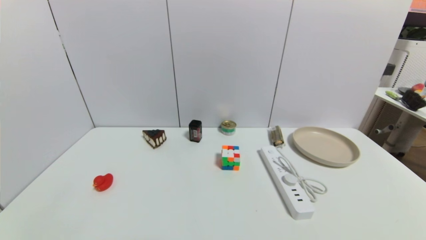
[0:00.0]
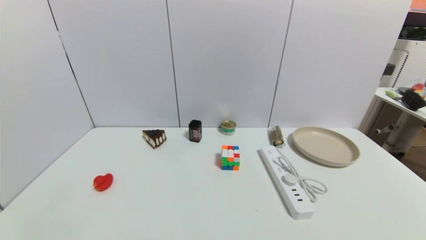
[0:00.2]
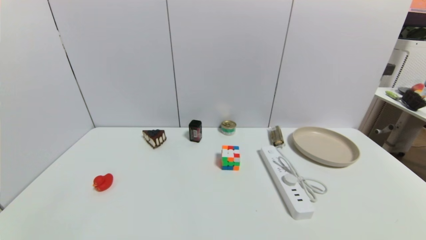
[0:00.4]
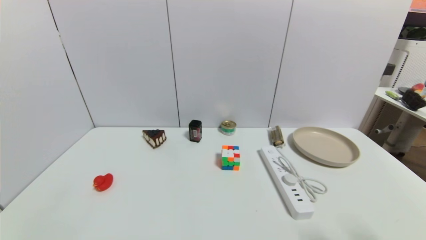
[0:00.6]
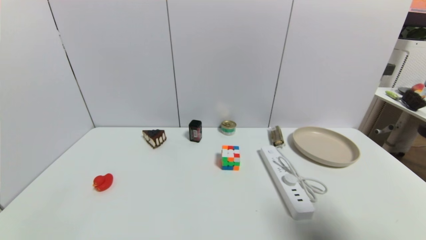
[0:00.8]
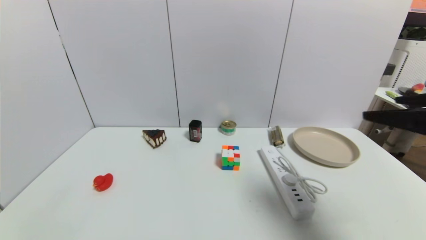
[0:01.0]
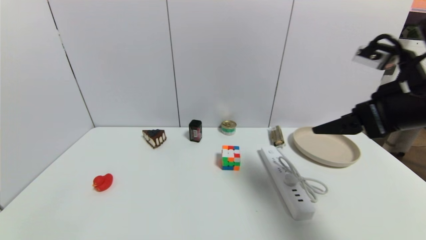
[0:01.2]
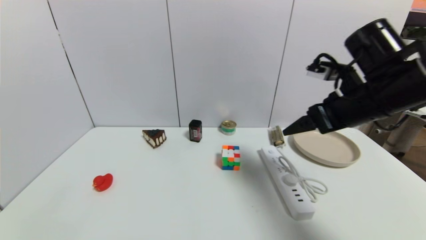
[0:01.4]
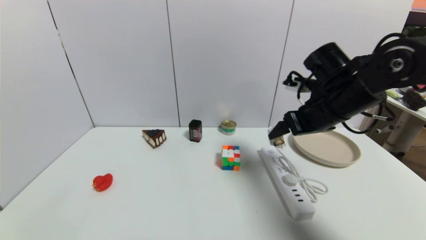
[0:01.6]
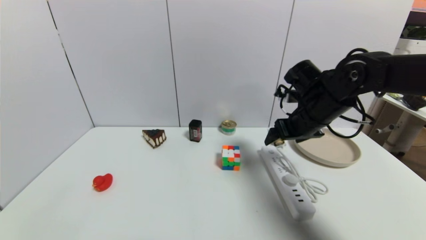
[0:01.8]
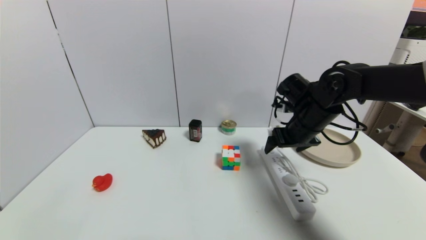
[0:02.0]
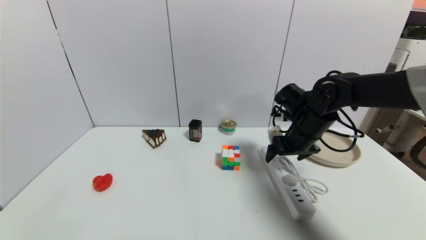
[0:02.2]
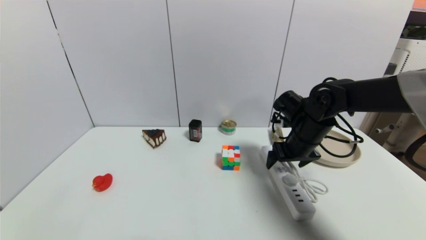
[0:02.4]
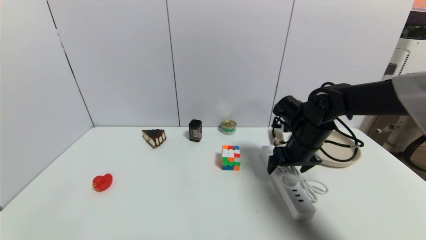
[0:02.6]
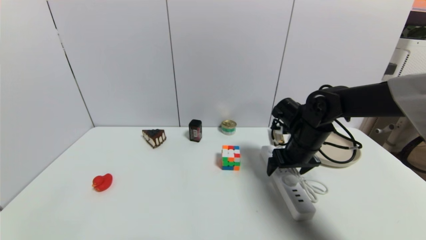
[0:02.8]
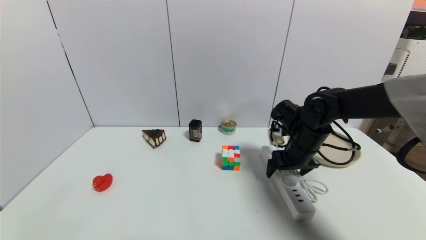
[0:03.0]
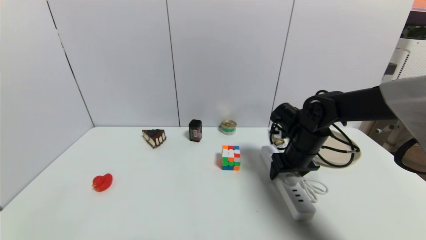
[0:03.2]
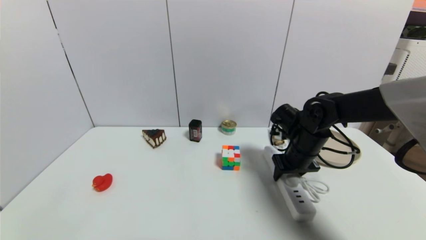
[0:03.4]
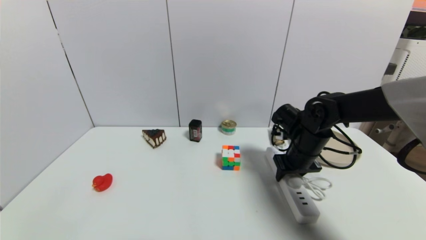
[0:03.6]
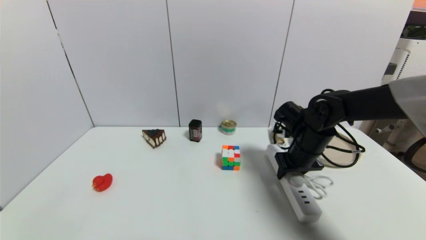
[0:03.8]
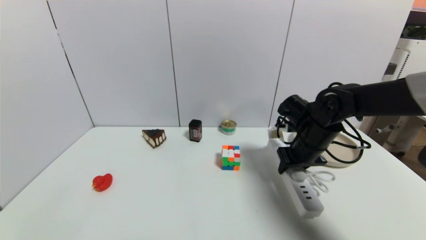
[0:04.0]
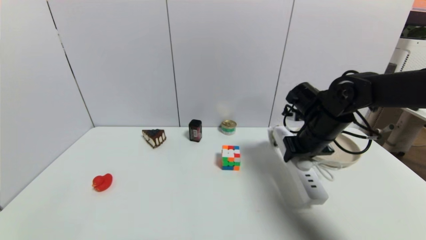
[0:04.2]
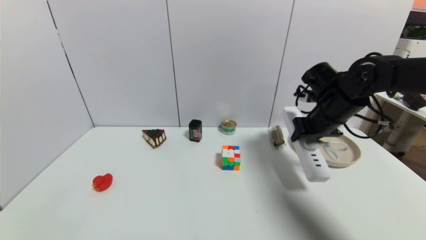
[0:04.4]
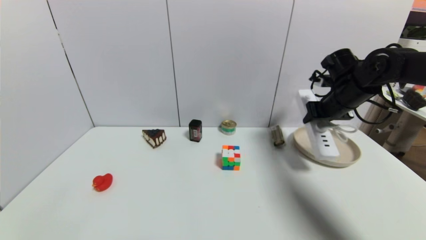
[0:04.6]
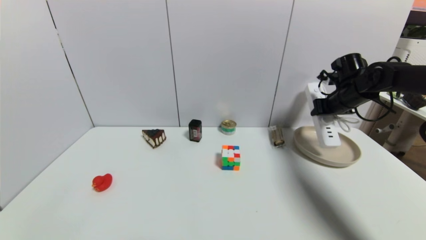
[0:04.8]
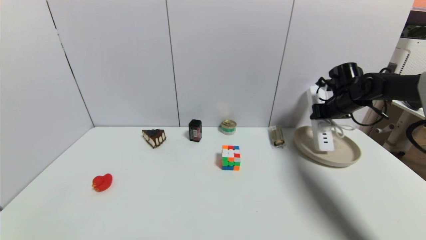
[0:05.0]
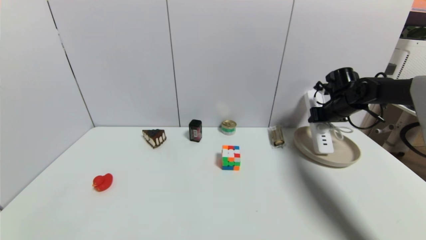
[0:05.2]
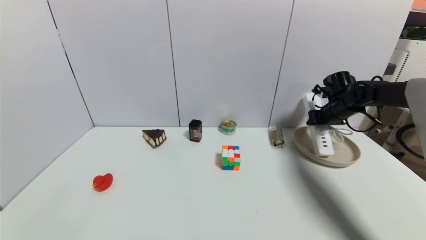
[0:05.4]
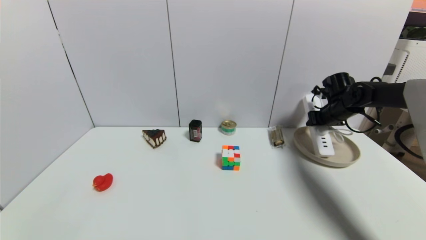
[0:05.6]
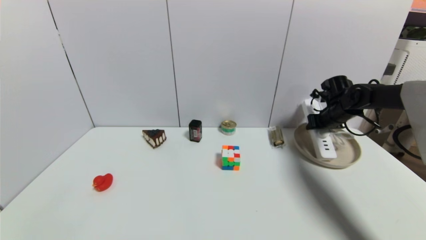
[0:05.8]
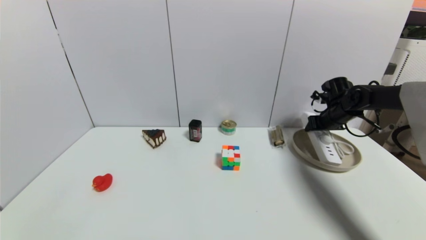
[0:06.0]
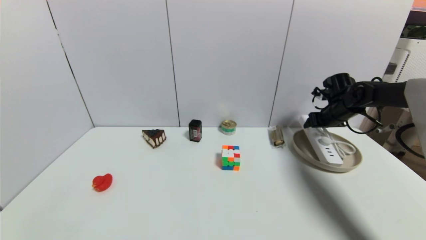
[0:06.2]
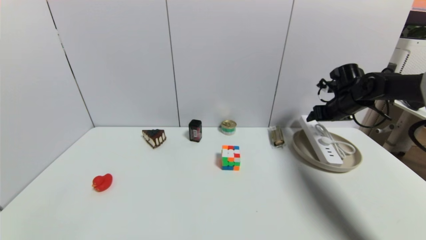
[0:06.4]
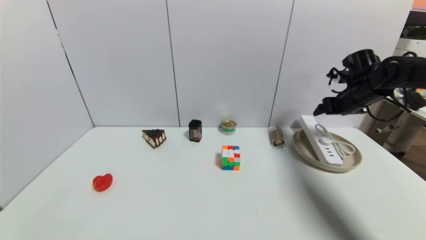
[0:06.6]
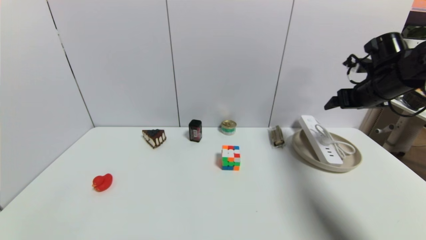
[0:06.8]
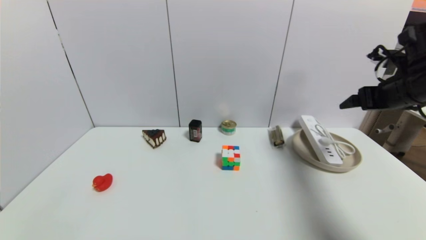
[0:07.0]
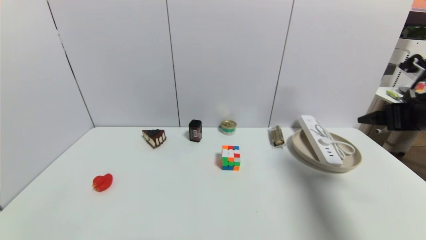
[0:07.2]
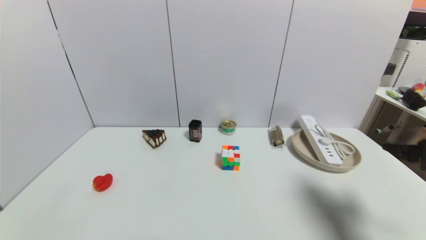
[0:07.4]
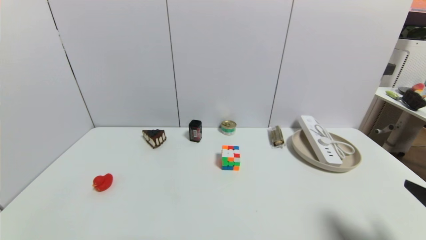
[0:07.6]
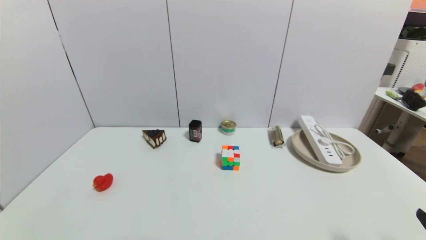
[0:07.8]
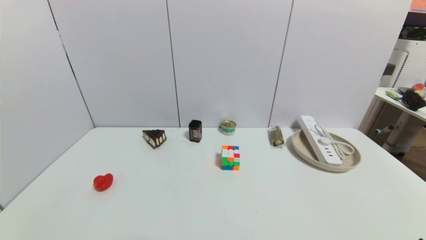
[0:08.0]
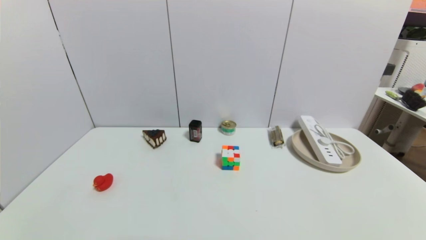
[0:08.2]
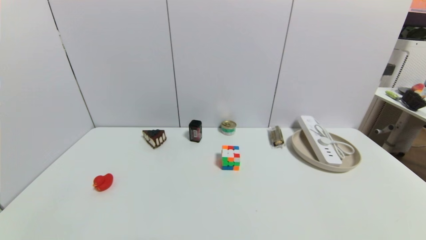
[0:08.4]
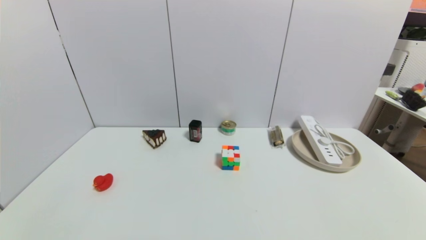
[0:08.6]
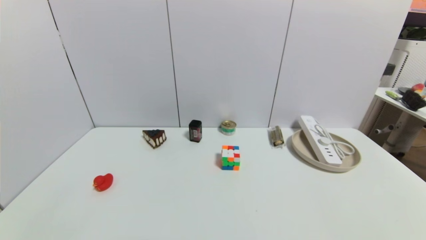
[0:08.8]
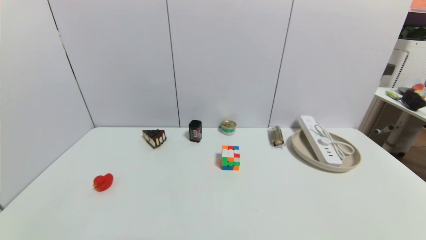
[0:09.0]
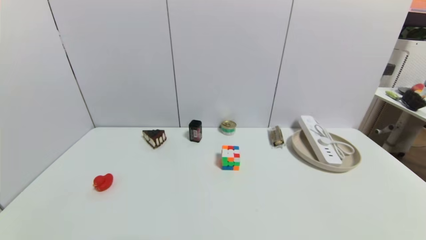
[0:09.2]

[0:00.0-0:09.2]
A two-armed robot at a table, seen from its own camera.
Task of the whole recording: use a gripper to pick the target object and place on the brown plate.
Step, 0:00.0 to 0:03.6: Grasp the plugboard with the right gripper.
Step, 0:03.8 to 0:06.4: Place the plugboard on the brown plate with the right gripper.
0:00.0 to 0:01.6: The right gripper shifts approximately 40 cm forward and upward.
0:01.6 to 0:03.0: The right gripper moves downward, approximately 10 cm.
0:03.0 to 0:04.6: The right gripper shifts approximately 15 cm to the right, upward and forward, and closes its fingers.
0:04.6 to 0:06.2: The right gripper is displaced downward, forward and to the right by approximately 10 cm, and opens.
0:06.2 to 0:07.6: The right gripper heads backward, covering some 40 cm, and opens.
0:07.6 to 0:09.2: The right gripper is displaced downward and backward by some 15 cm.

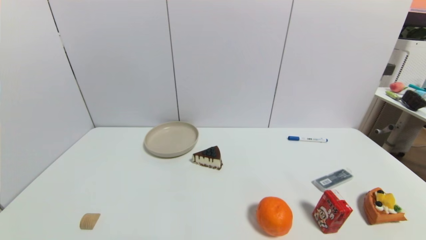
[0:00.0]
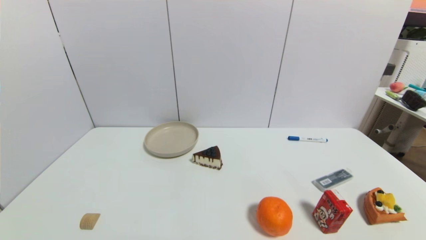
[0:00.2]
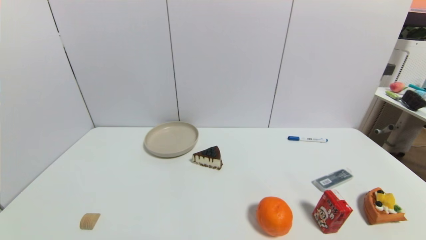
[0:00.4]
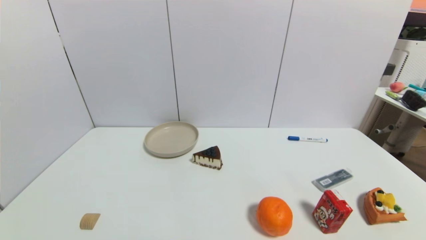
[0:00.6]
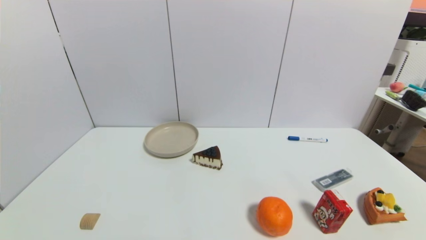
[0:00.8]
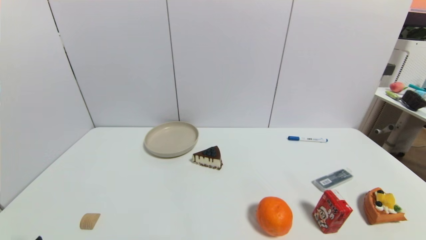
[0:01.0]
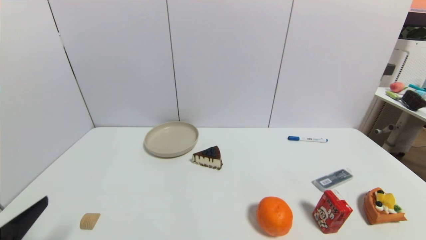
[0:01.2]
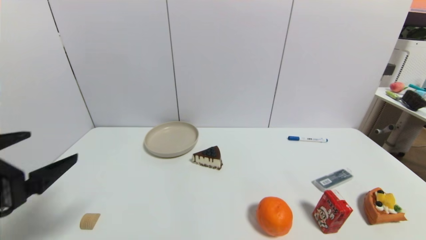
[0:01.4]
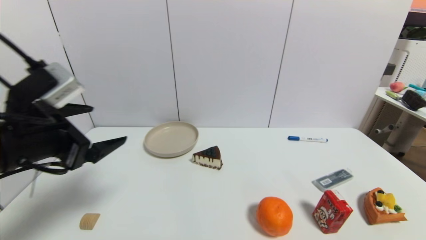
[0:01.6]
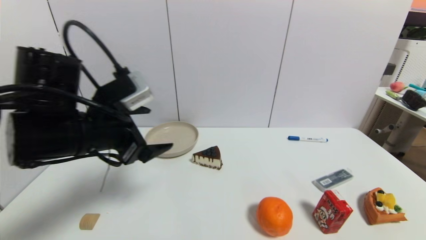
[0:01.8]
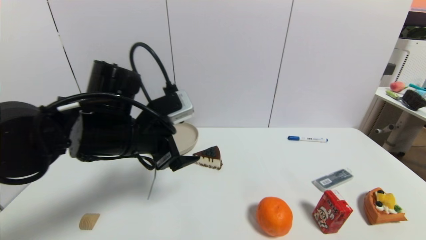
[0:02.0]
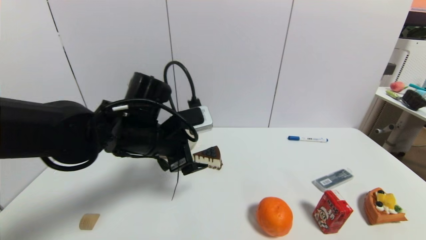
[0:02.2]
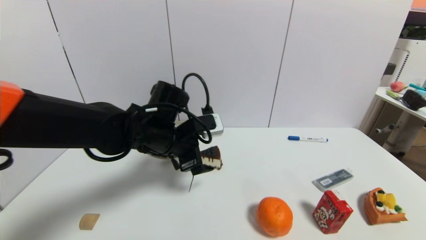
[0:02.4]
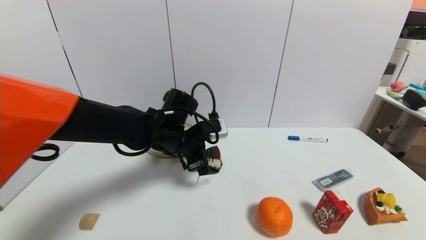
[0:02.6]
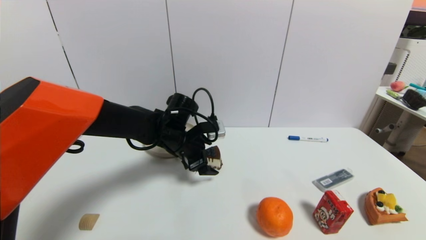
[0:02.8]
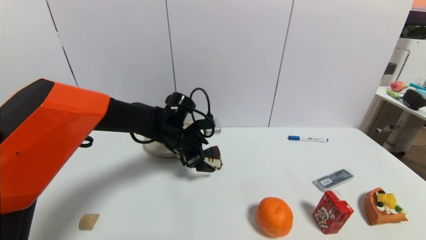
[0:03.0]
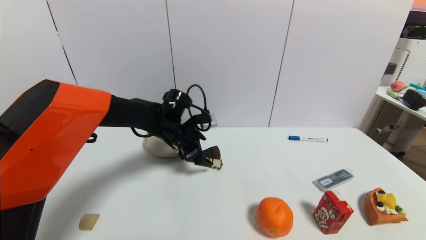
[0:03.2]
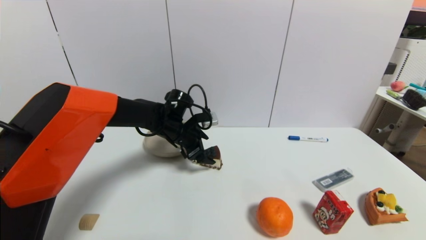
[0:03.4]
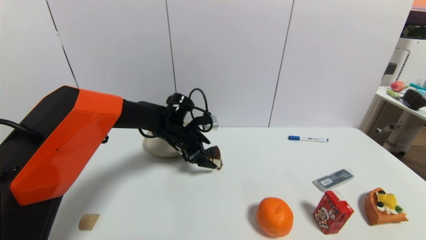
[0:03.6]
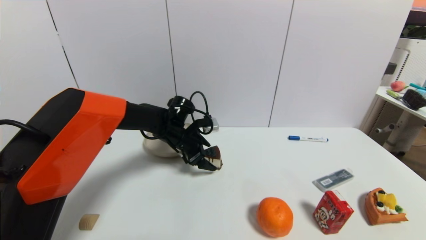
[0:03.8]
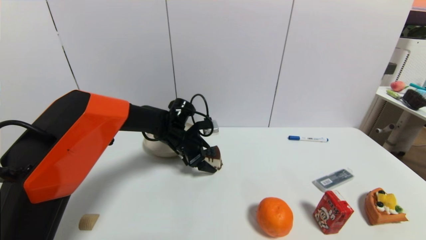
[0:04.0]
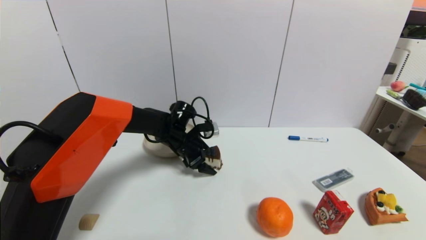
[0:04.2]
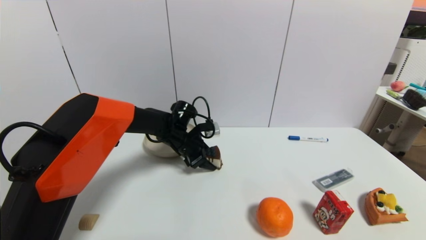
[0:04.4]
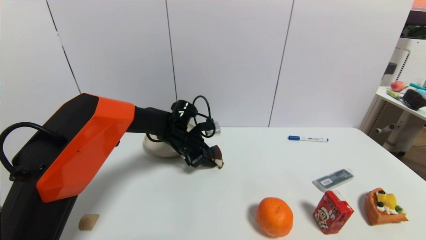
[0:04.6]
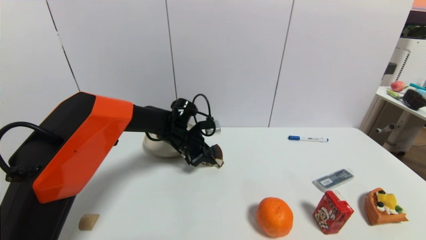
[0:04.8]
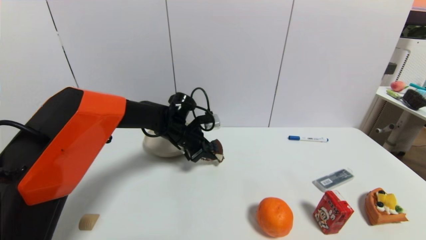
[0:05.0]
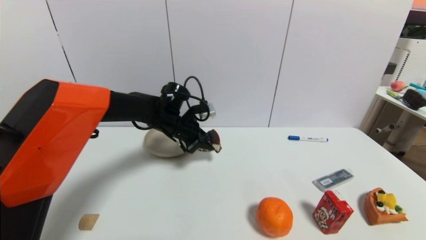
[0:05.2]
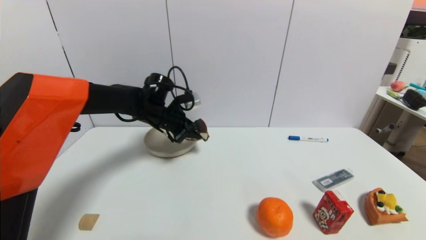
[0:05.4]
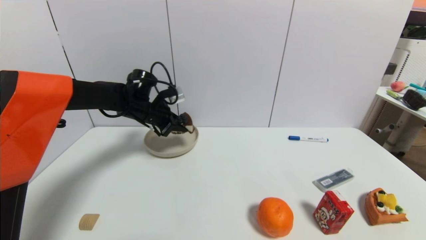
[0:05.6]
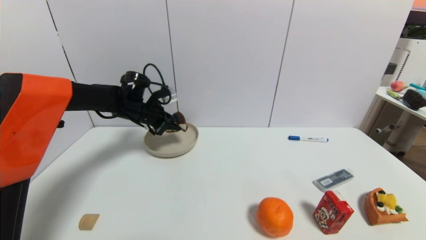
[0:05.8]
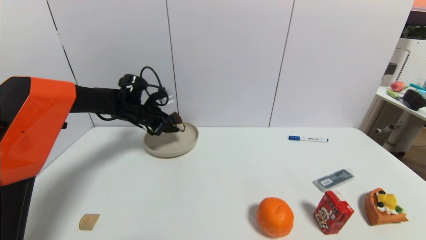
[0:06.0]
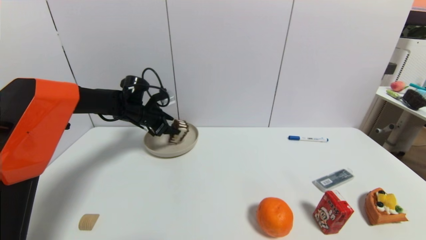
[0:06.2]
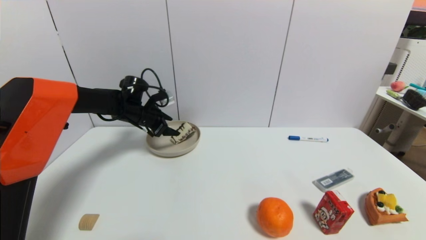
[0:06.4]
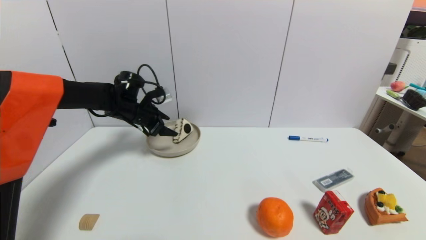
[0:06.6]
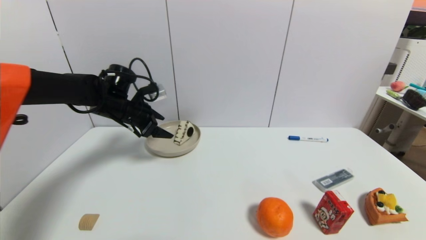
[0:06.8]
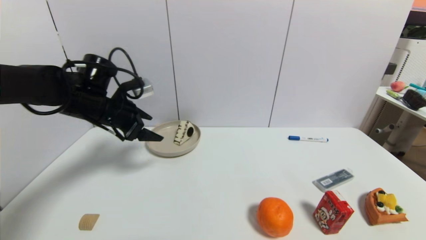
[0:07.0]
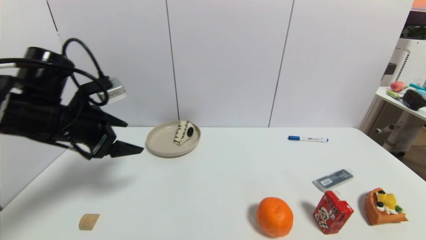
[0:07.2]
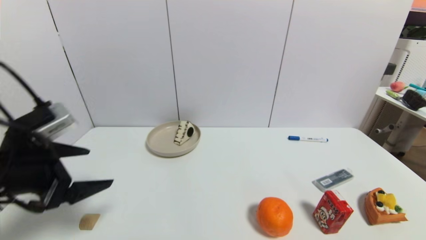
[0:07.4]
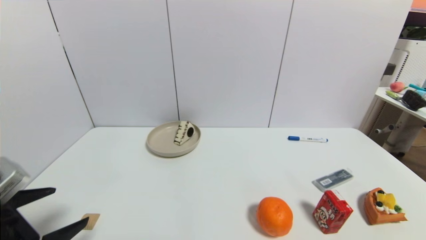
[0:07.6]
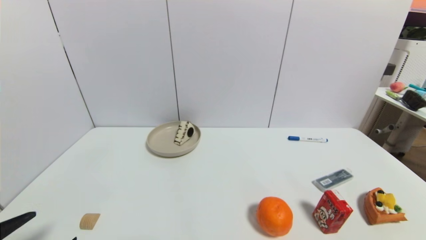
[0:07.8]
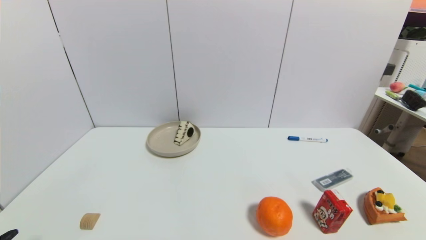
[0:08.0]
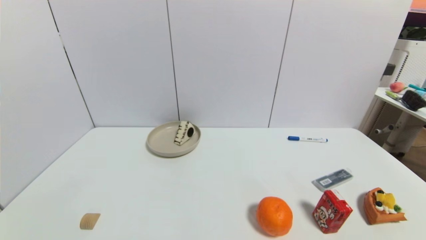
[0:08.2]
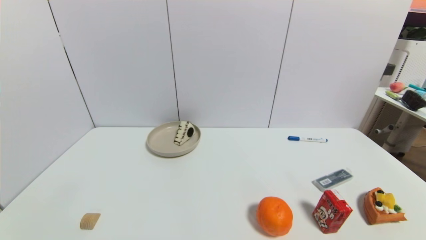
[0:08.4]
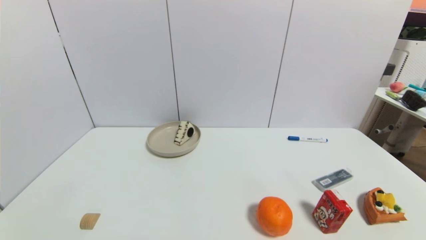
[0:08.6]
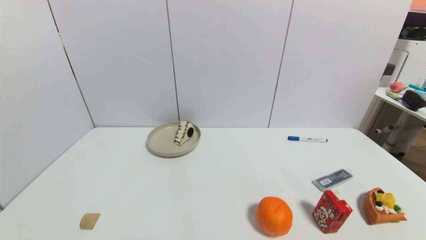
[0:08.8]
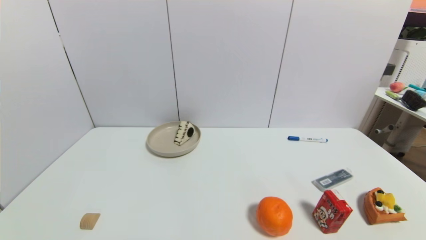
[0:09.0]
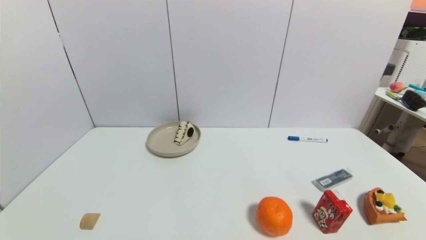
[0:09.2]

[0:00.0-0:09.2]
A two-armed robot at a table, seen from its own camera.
Task of the whole recording: use a gripper to pick the target object and place on the brown plate.
Step, 0:00.0 to 0:04.6: Grasp the chocolate cake with the left gripper.
Step, 0:04.8 to 0:06.6: Place the chocolate cake on the brown plate with the left gripper.
0:00.0 to 0:01.6: The left gripper heads forward and upward, covering approximately 25 cm.
0:01.6 to 0:03.0: The left gripper goes roughly 30 cm forward, to the right and downward.
0:03.0 to 0:04.6: The left gripper shifts by roughly 5 cm, and closes up.
0:04.6 to 0:06.2: The left gripper is displaced to the left and upward by roughly 15 cm, and opens its fingers.
0:06.2 to 0:07.6: The left gripper travels backward by roughly 35 cm, and opens up.
0:07.6 to 0:09.2: The left gripper travels backward and downward by about 15 cm.
